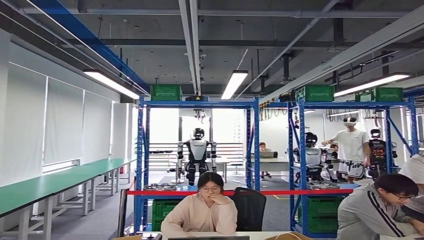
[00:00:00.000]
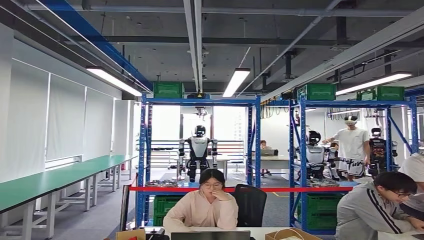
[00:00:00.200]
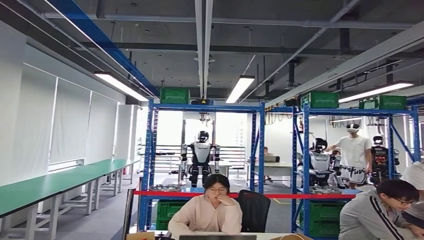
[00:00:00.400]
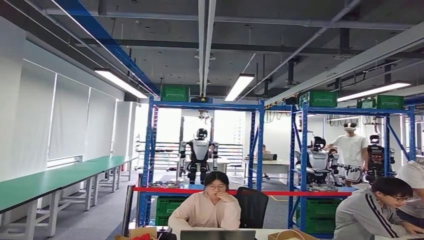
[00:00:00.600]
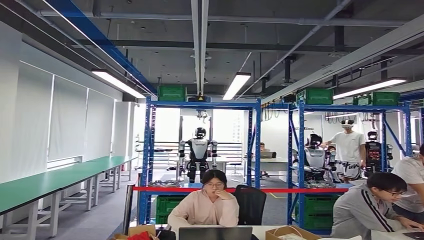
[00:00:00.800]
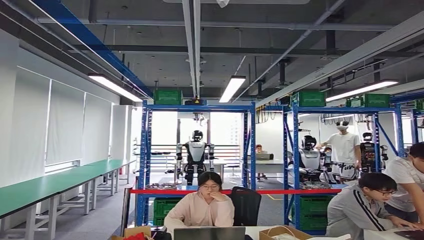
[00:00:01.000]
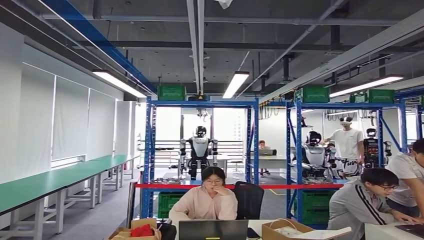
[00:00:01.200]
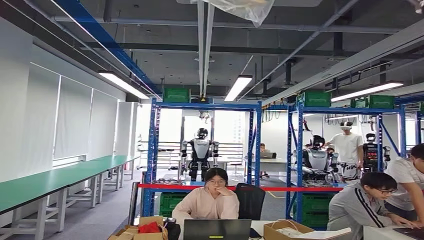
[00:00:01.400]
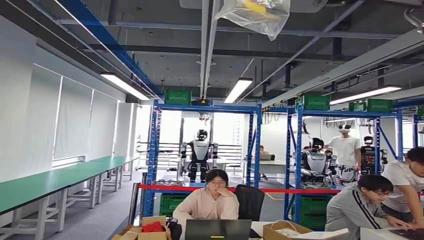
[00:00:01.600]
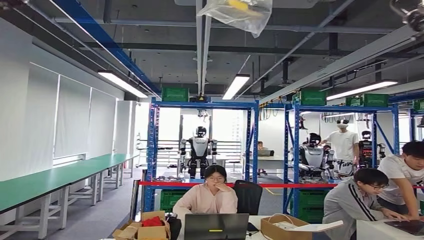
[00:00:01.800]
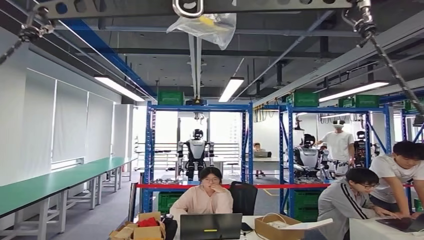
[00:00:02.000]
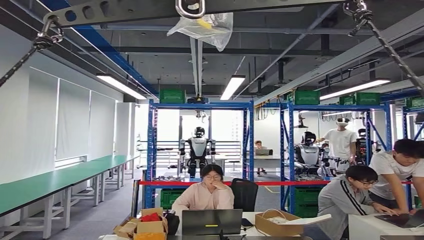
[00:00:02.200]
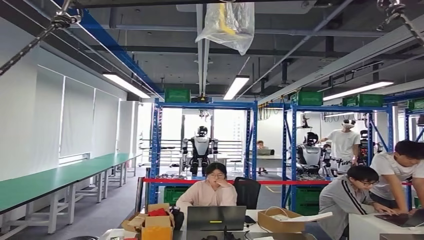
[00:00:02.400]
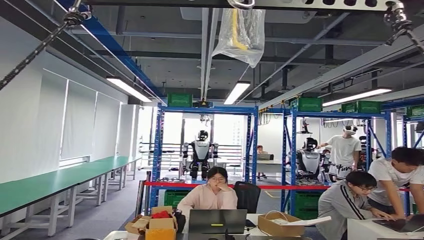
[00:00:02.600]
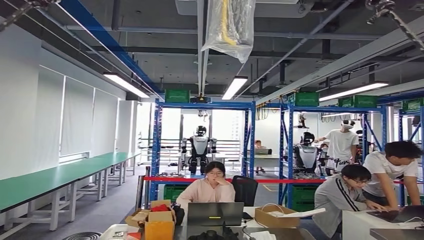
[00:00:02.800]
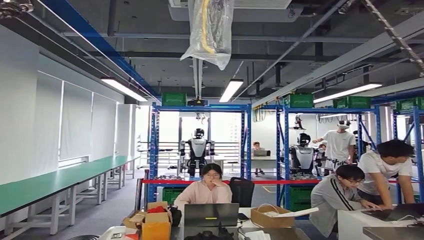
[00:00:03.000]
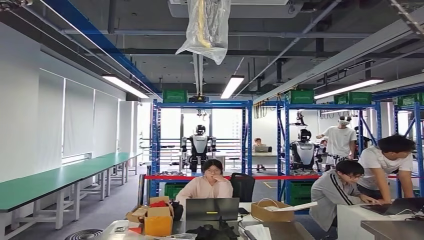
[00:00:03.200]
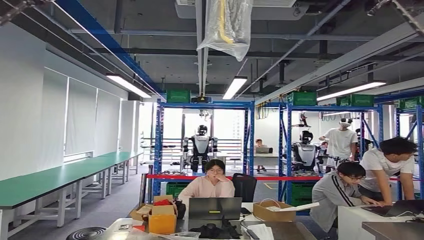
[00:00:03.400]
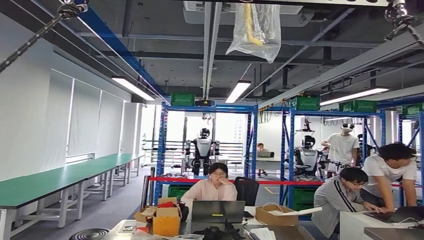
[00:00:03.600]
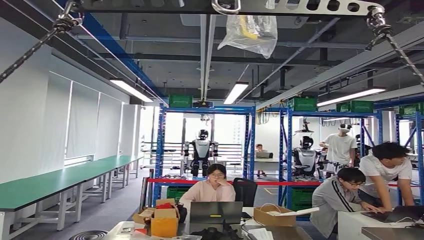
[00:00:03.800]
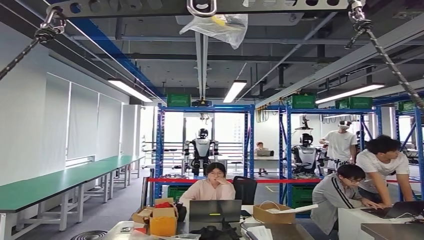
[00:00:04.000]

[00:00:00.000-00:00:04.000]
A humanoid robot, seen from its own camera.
Step, 00:00:00.000 to 00:00:04.000: Move to the initial position of the workbench.
